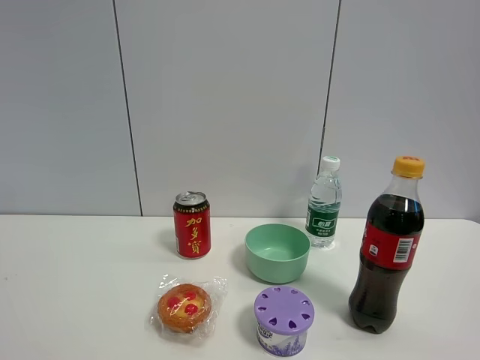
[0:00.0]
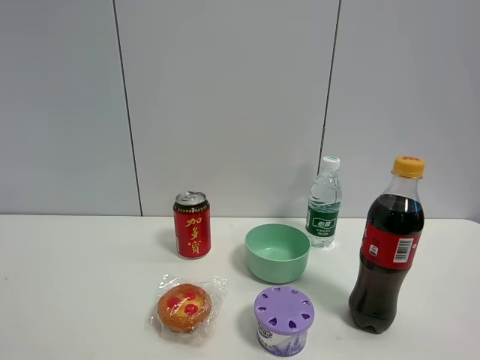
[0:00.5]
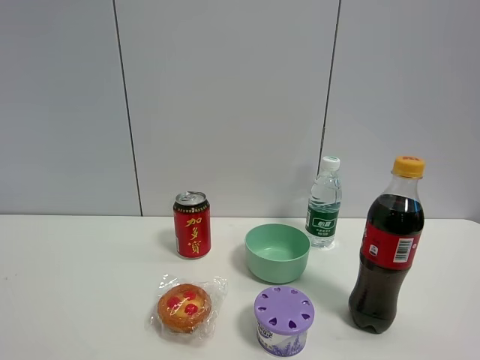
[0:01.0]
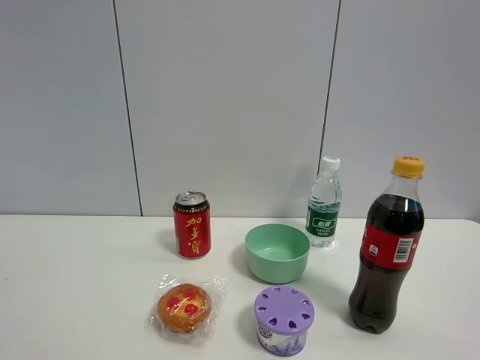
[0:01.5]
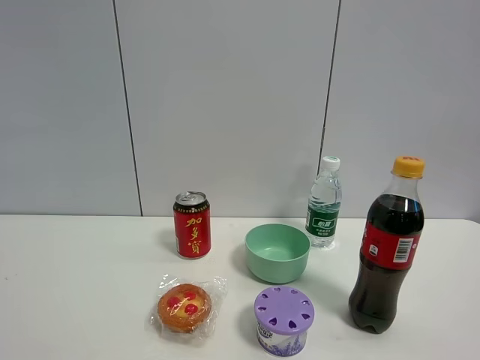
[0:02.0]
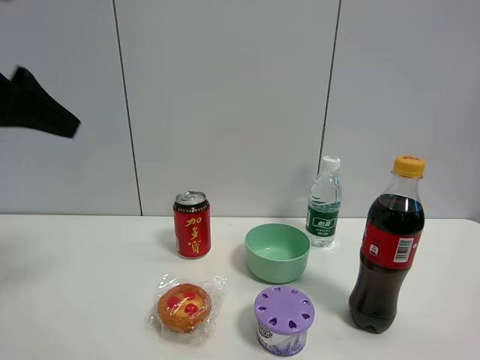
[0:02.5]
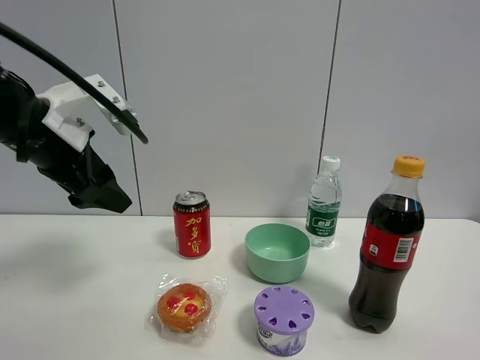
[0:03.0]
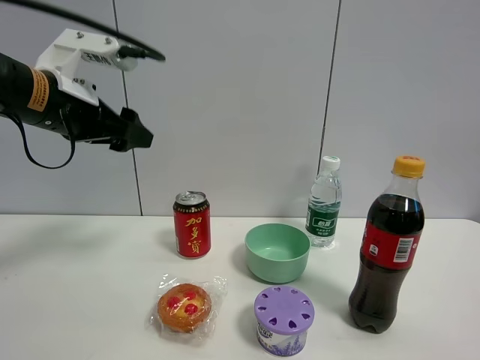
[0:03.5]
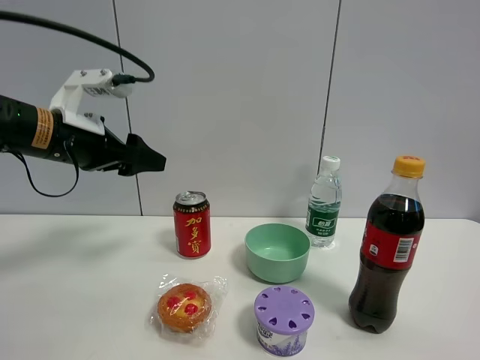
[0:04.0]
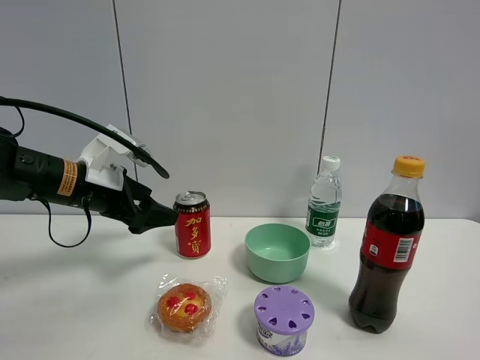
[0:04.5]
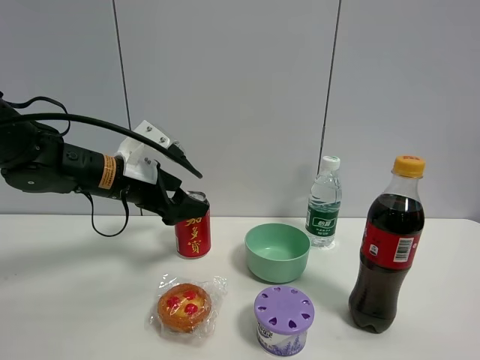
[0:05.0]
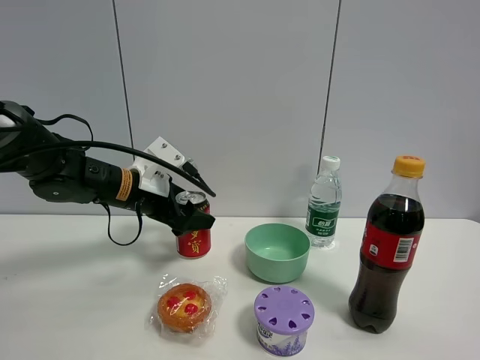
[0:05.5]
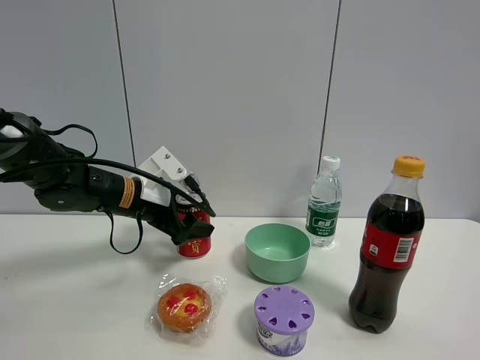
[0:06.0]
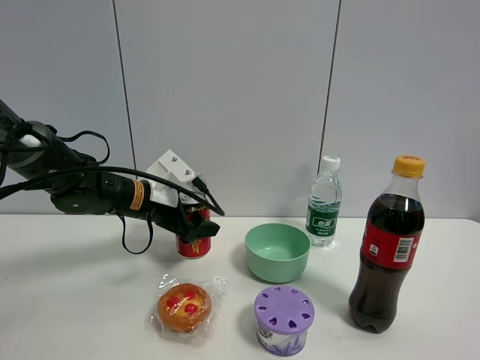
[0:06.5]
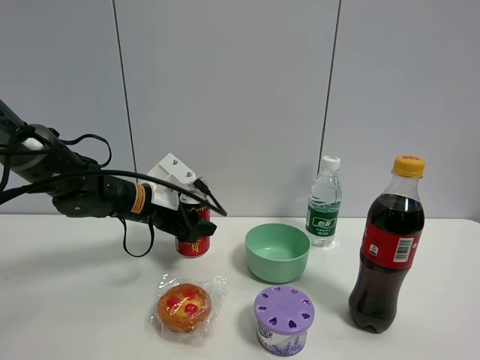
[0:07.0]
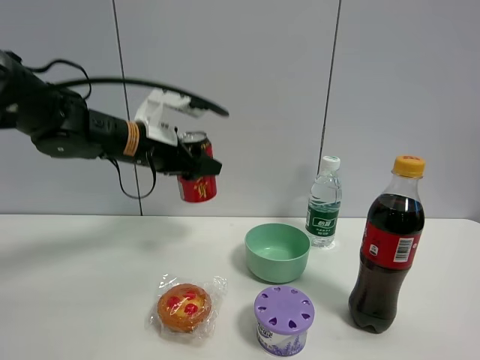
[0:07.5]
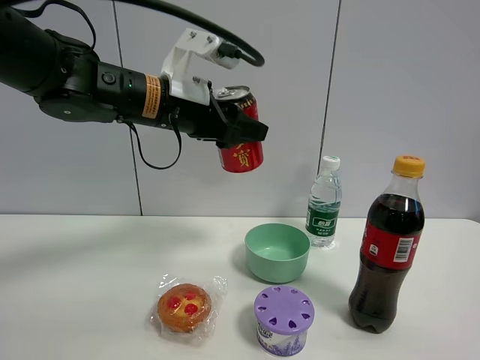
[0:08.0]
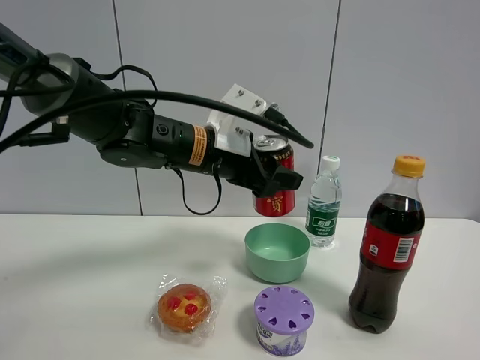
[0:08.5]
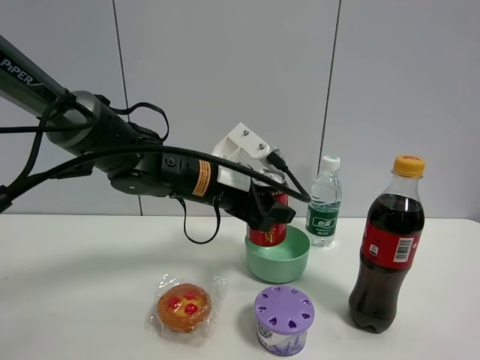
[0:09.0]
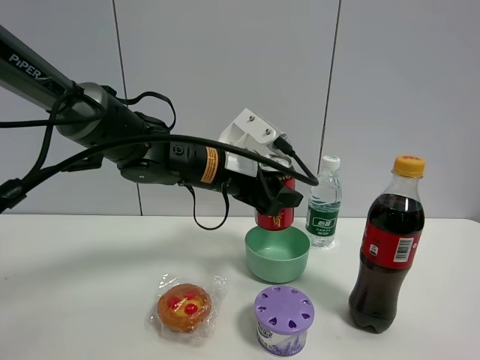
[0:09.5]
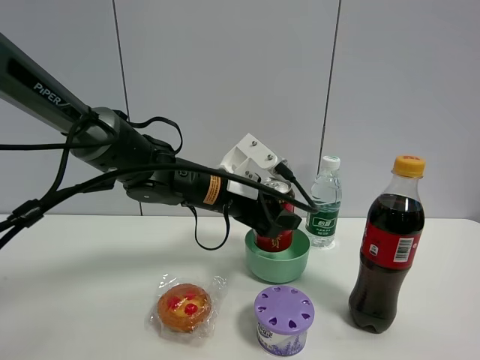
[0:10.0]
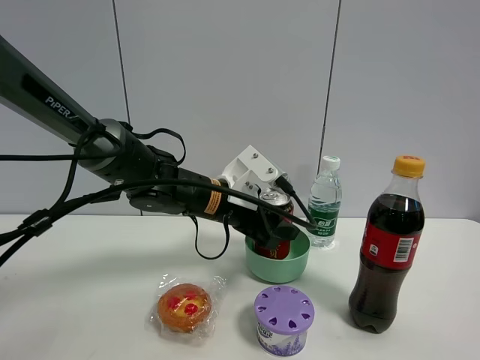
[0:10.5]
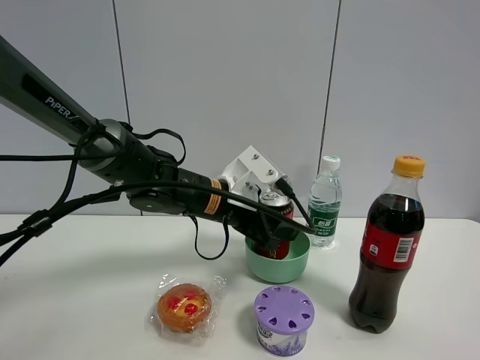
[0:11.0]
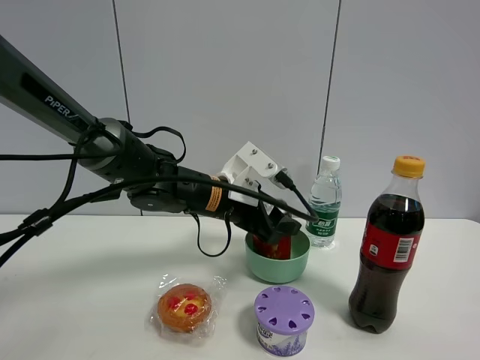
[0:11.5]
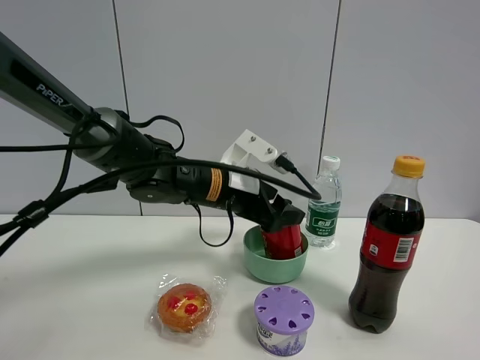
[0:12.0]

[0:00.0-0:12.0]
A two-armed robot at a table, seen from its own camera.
Task of the whole recording: the gripper move the object.
Step, 0:00.0 to 0:07.0: Grasp the Jia Duo Bao with the left gripper.
0:02.0 to 0:04.0: The left gripper is displaced forward and downward by approximately 35 cm.
0:04.0 to 0:06.0: The left gripper heads downward, forward and to the right, covering some 15 cm.
0:06.0 to 0:08.0: The left gripper heads upward and to the right, covering about 15 cm, and closes.
0:08.0 to 0:10.0: The left gripper moves downward and to the right, roughly 15 cm.
0:10.0 to 0:12.0: The left gripper opens.

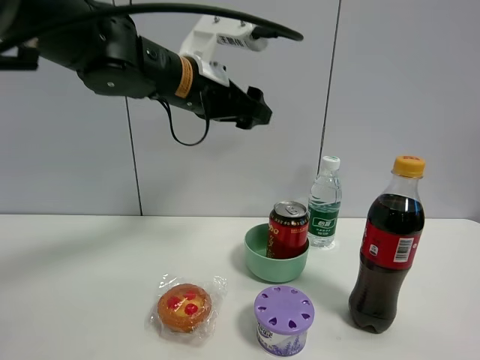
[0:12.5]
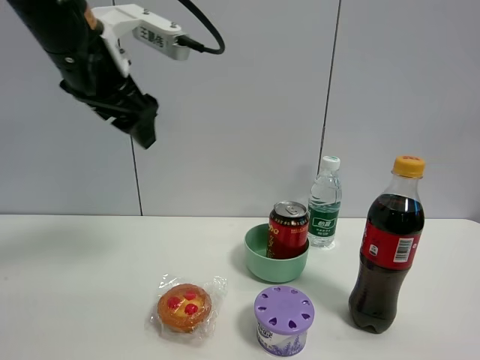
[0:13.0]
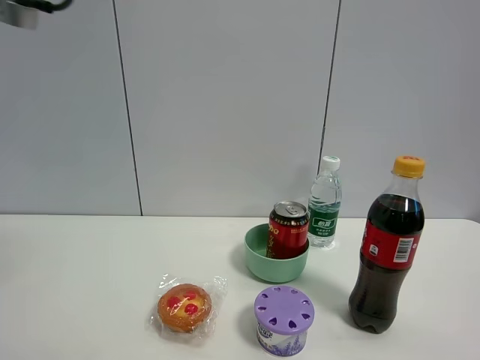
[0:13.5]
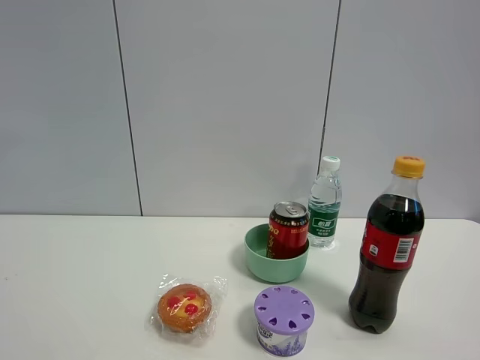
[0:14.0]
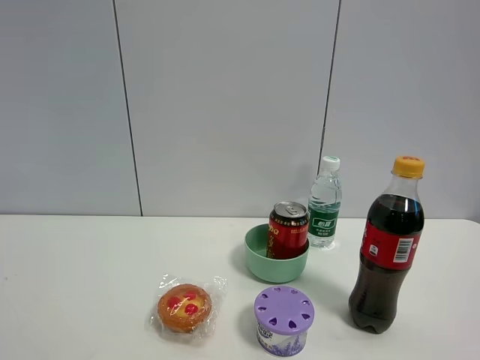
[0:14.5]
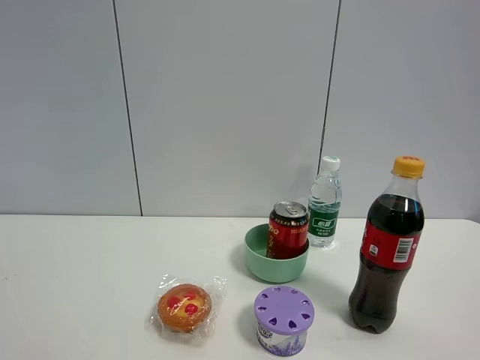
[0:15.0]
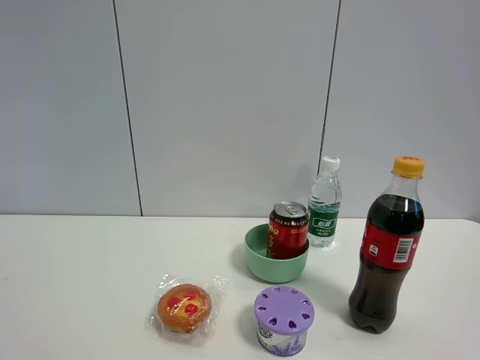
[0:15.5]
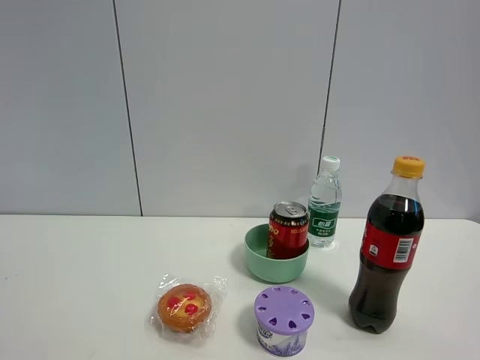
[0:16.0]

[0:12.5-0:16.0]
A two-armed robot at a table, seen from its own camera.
Task of the whole recording: the gripper move the object.
0:12.5 to 0:14.5: The left gripper travels backward and to the left by roughly 40 cm.

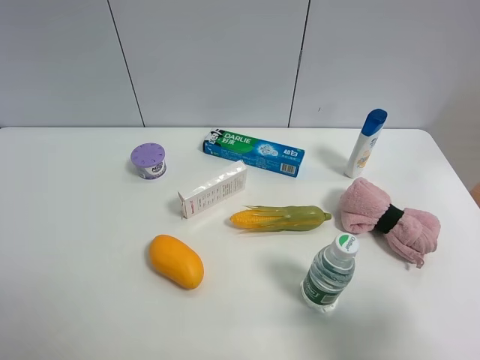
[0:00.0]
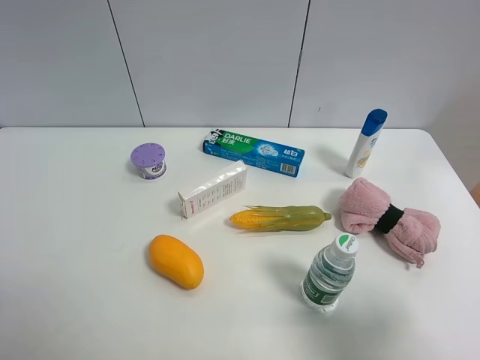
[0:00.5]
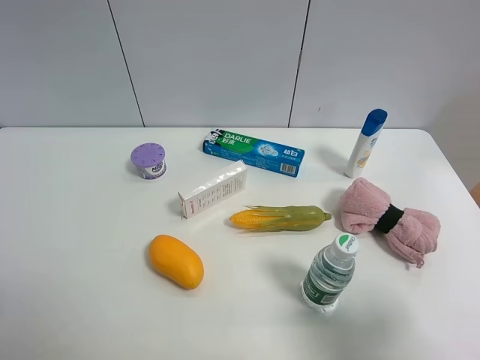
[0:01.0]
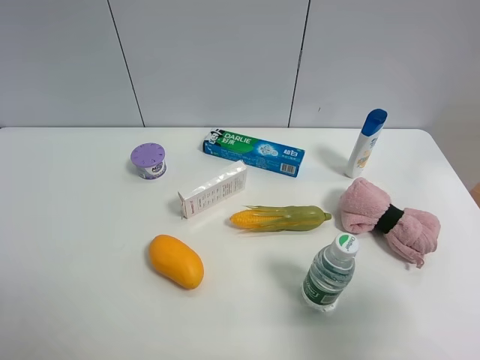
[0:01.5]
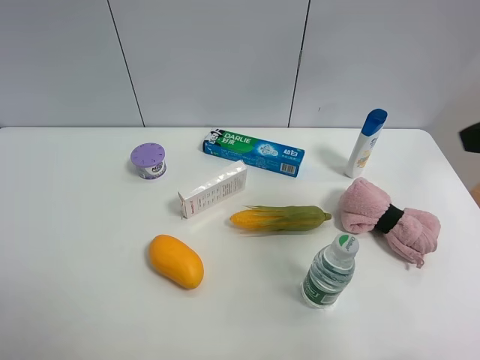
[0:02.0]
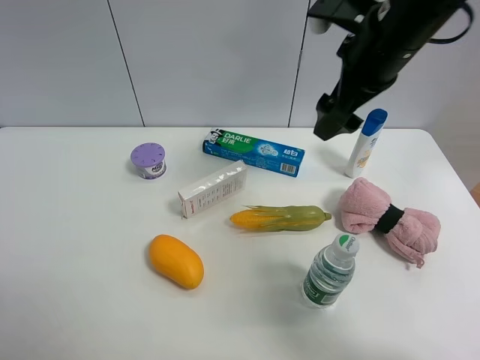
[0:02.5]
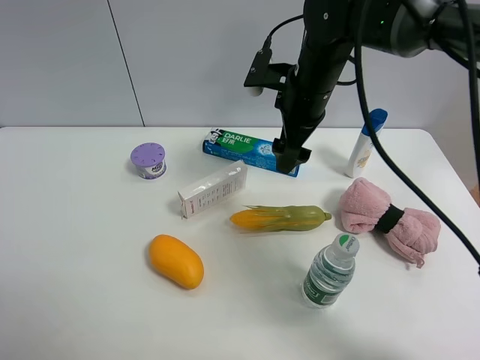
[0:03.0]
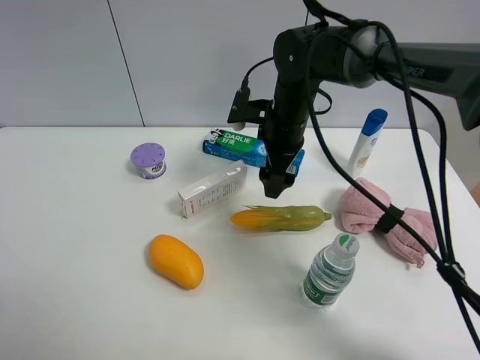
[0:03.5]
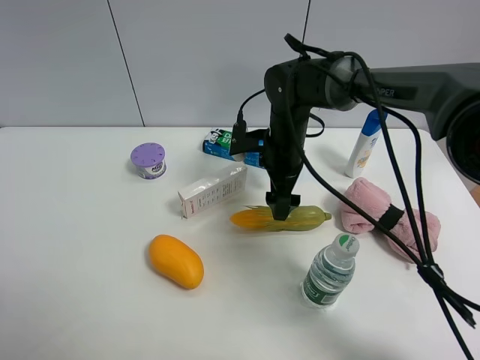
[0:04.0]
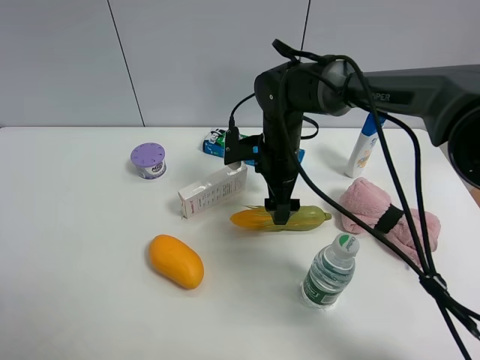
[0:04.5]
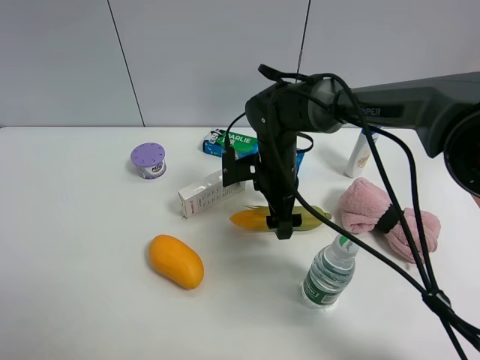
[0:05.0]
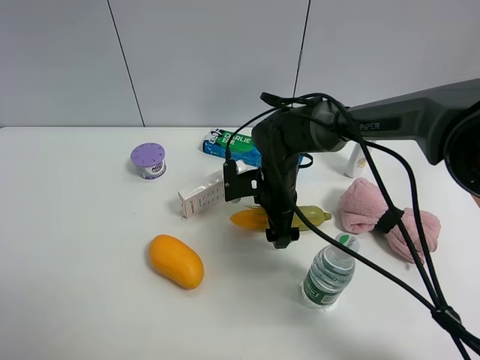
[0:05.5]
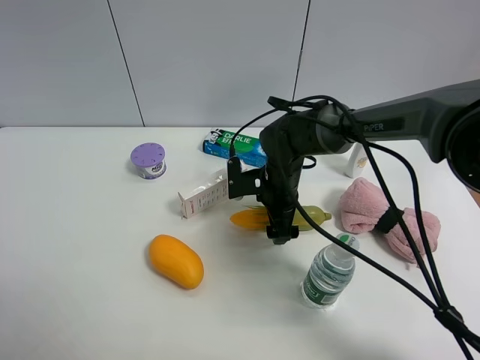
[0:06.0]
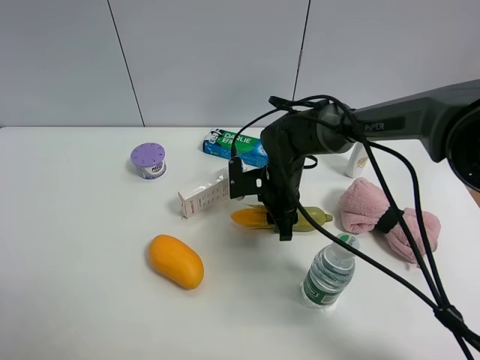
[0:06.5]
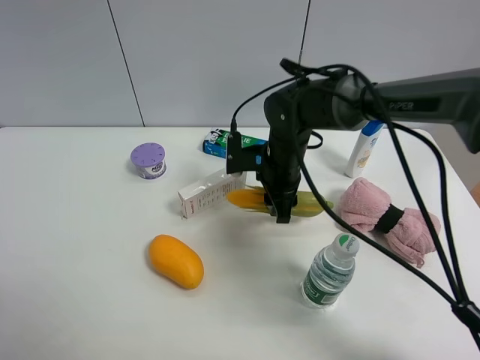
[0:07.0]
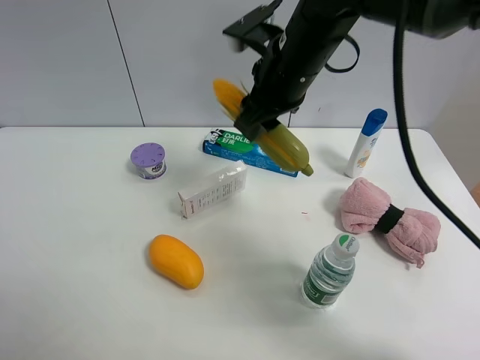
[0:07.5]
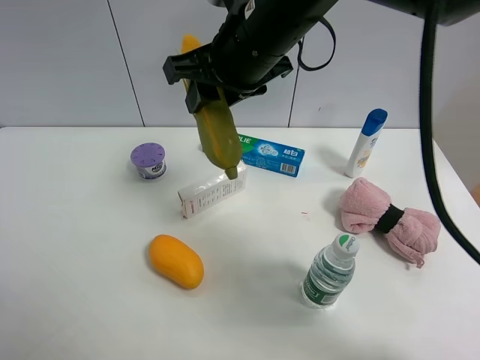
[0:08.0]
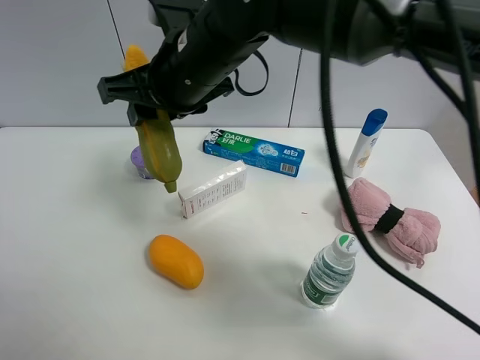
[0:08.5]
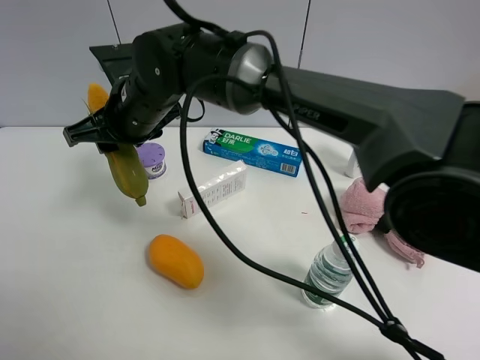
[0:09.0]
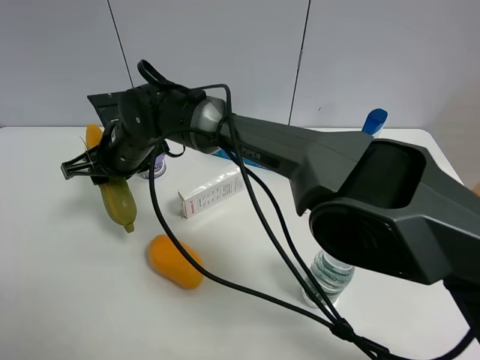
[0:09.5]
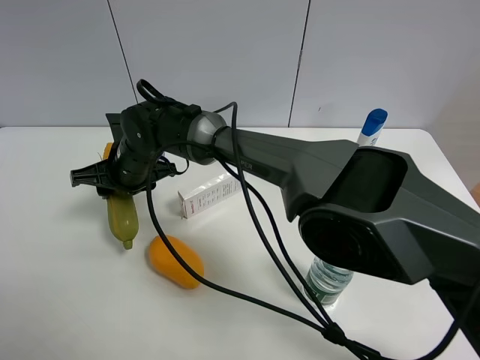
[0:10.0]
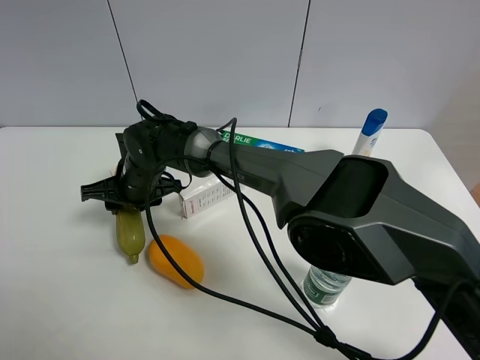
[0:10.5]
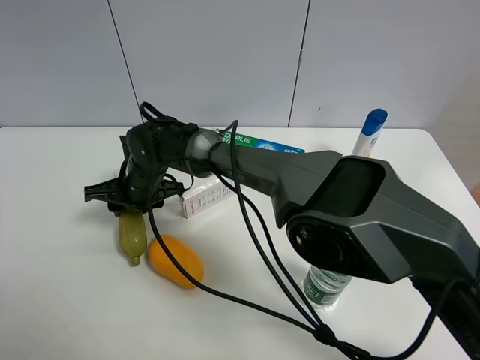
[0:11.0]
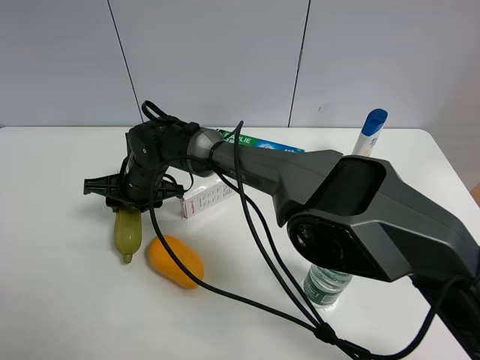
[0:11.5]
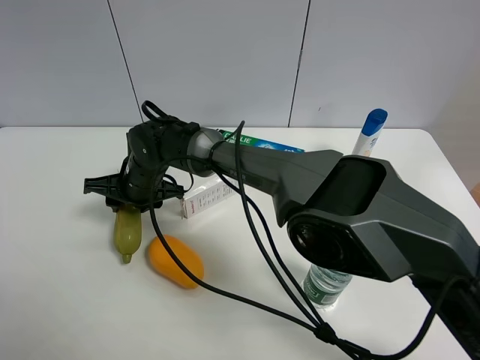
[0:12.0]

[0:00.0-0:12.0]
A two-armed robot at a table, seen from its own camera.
Task of the whole recording: the gripper move the object.
Step, 0:00.0 to 0:06.5: Grasp the corn with the right gripper.
0:00.0 to 0:02.0: The right gripper is displaced forward and upward by about 20 cm.
0:02.0 to 0:04.0: The right gripper shifts some 35 cm downward, forward and to the left.
0:04.0 to 0:06.0: The right gripper is displaced downward by about 5 cm.
0:06.0 to 0:08.0: The right gripper is displaced upward by roughly 25 cm, and closes.
0:08.0 to 0:10.0: The right gripper travels downward and to the left by roughly 25 cm.
0:10.0 to 0:12.0: The grippers make only small movements.
